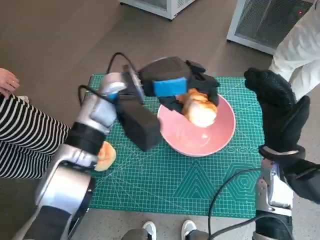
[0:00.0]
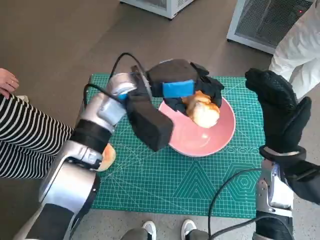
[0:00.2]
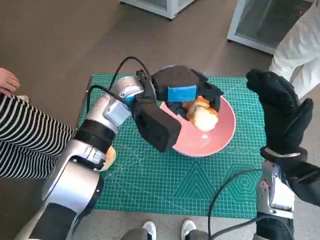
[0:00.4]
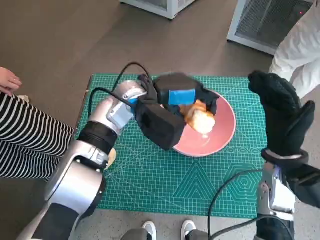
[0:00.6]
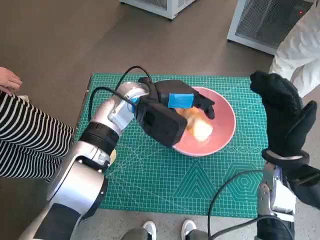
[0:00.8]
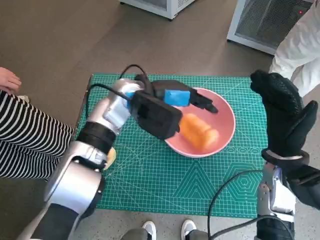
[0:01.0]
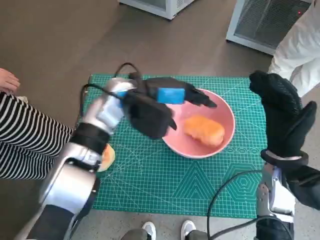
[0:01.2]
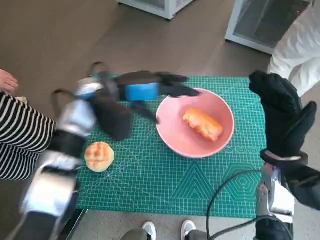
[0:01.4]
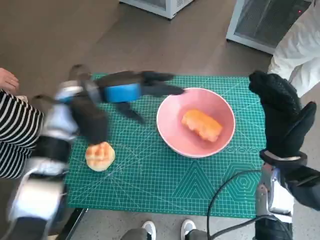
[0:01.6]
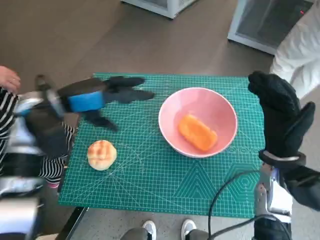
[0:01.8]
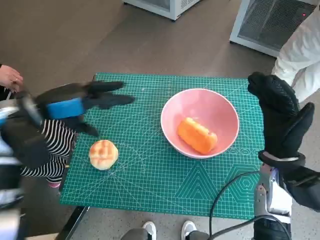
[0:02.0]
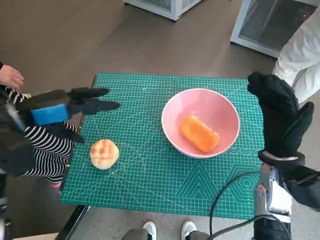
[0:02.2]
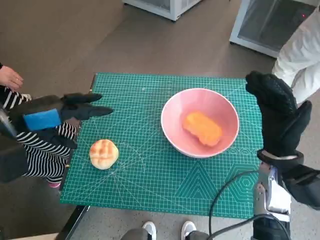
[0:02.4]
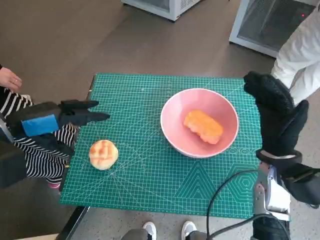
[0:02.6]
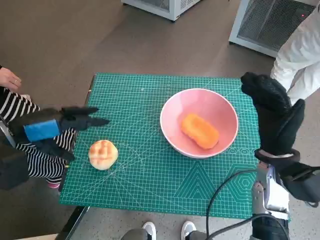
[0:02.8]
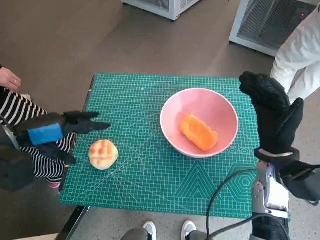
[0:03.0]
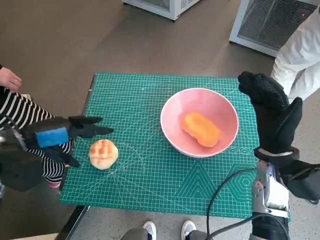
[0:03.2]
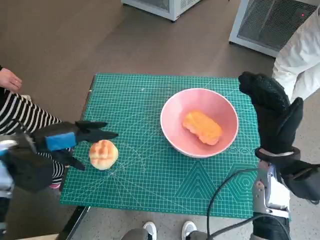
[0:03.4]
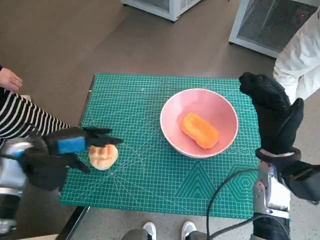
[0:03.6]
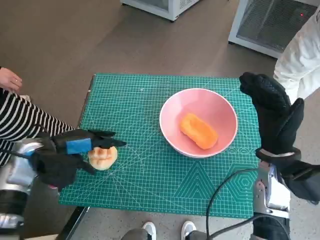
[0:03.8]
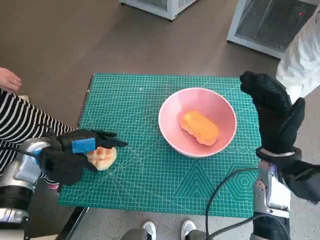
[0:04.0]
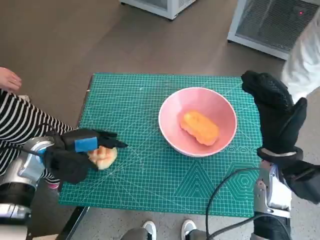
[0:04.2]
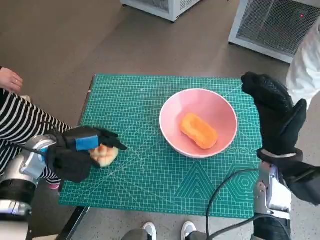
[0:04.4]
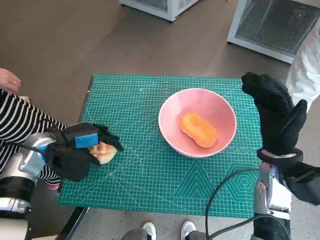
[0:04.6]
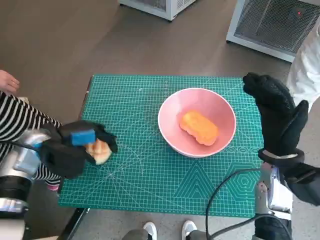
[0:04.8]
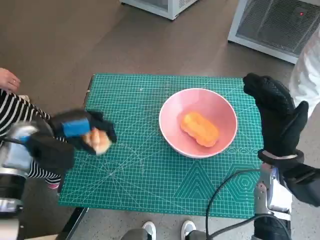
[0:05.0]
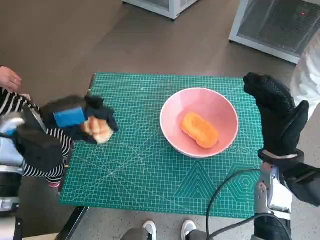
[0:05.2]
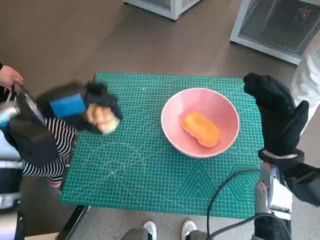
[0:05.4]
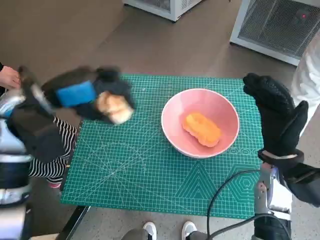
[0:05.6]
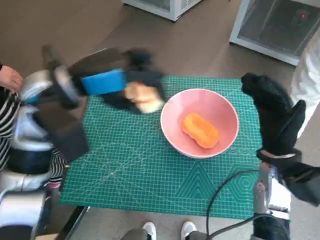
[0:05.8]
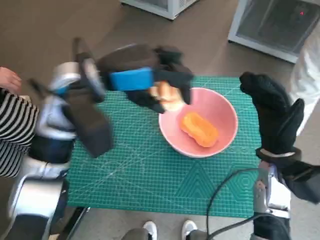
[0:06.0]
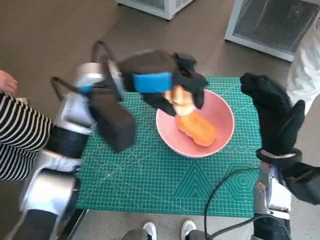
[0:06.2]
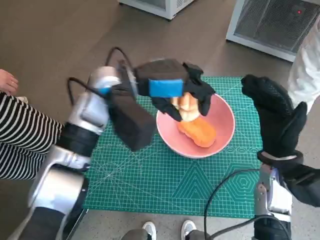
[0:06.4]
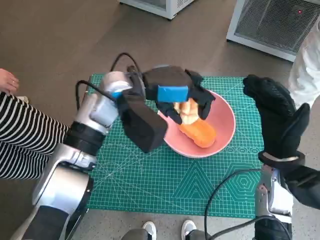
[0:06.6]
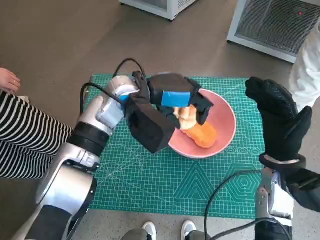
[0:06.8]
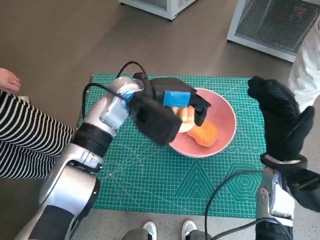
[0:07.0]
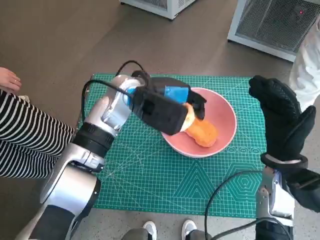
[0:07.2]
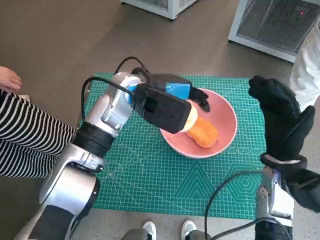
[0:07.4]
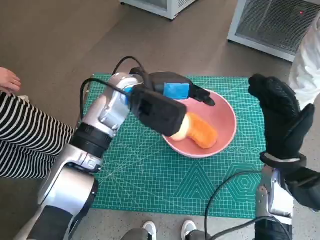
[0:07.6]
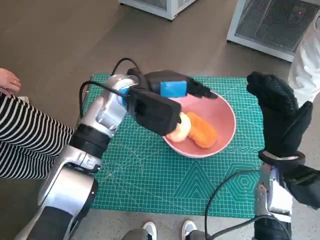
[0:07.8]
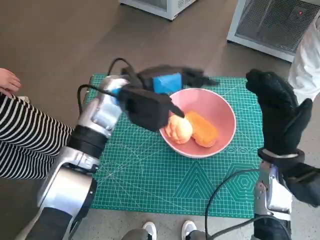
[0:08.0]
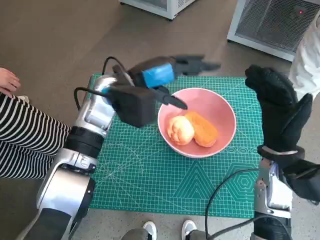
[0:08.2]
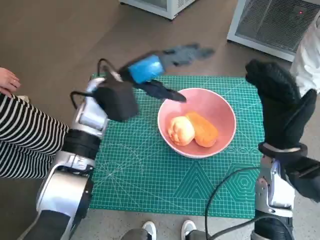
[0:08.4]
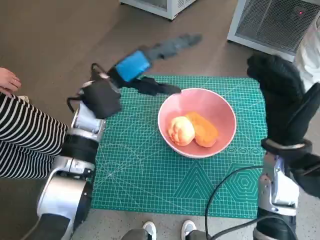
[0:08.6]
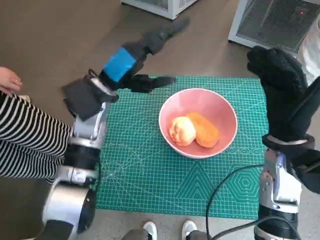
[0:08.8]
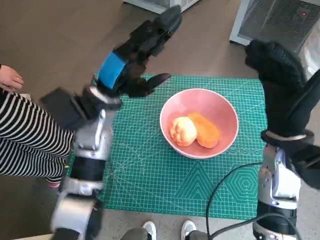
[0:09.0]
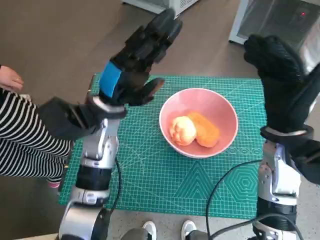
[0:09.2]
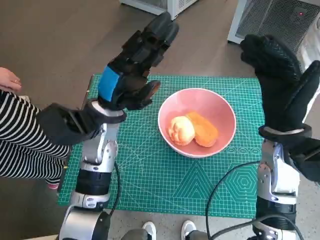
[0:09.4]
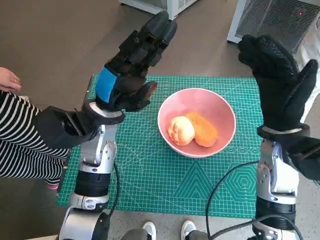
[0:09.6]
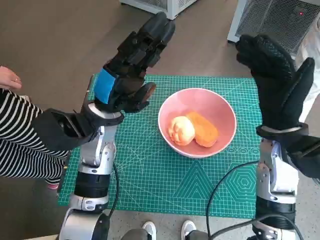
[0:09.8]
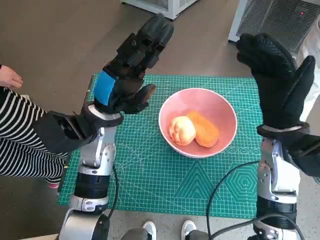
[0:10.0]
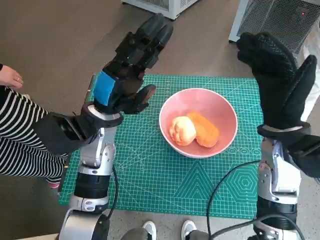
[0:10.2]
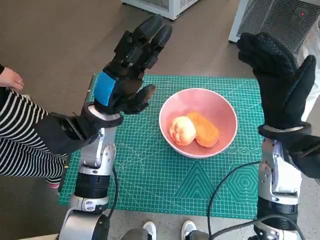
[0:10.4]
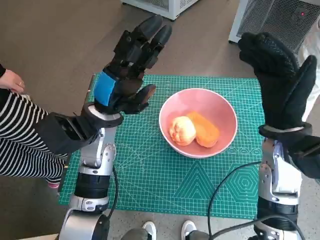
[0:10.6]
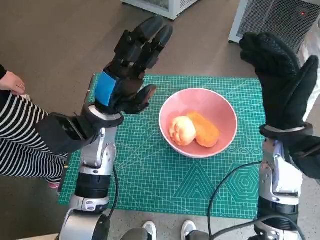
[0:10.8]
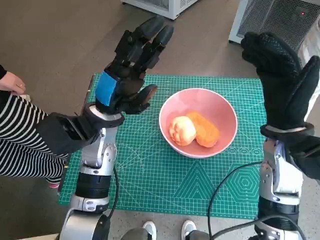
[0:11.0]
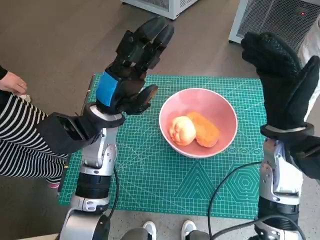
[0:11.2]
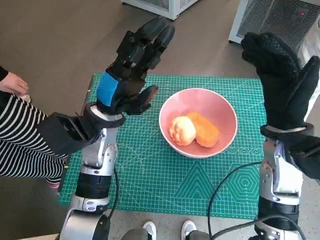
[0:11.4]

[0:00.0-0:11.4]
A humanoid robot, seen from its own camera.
Task of the whole recording: Push the bowl into the center of the table and put the bread into the bowl.
Step, 0:01.4 to 0:04.6: Grasp the round bread with left hand.
Step, 0:04.8 to 0:08.0: Place the round bread in pink bowl with left hand.
0:01.4 to 0:02.8: The left hand goes approximately 20 cm to the left and backward.
0:02.8 to 0:04.2: The left hand is displaced downward by approximately 10 cm.
0:04.2 to 0:05.6: The left hand heads upward, covering roughly 15 cm.
0:05.6 to 0:07.2: The left hand shifts some 15 cm to the right and forward.
0:07.2 to 0:08.6: The left hand moves to the left, approximately 5 cm.
0:08.6 to 0:10.0: The left hand shifts by approximately 5 cm.
0:10.0 to 0:11.4: Neither hand changes place.

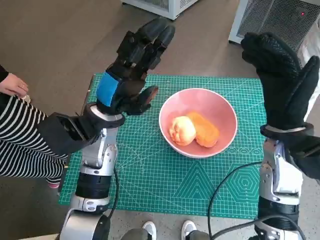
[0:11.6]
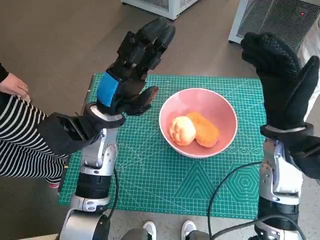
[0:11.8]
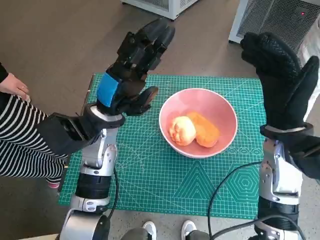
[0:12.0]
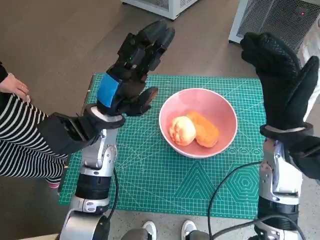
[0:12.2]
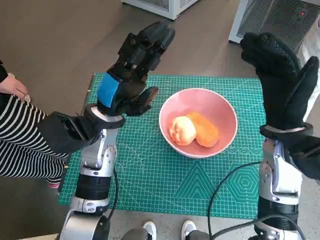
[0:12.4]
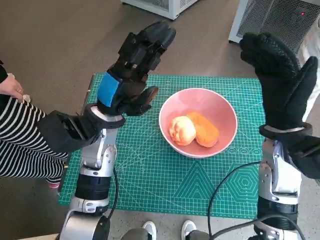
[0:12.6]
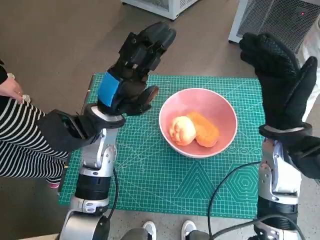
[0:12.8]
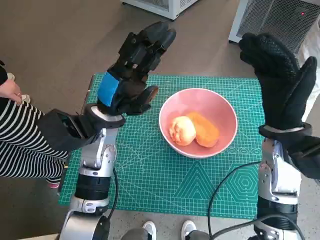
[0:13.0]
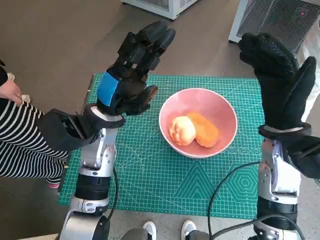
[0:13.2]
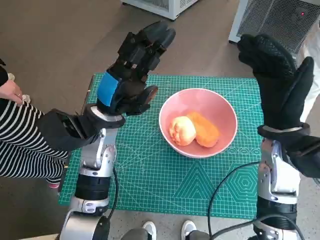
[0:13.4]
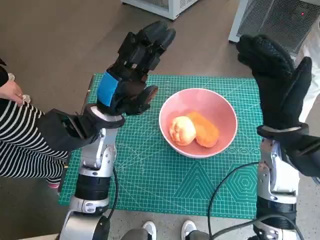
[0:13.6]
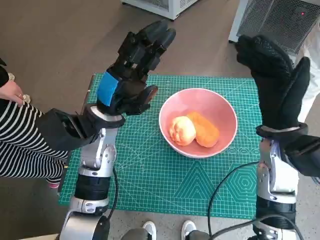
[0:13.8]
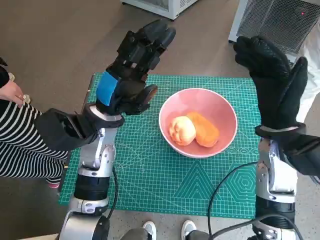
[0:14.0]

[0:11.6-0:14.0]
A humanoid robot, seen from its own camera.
Task of the whole recording: Push the bowl into the center of the table and put the bread into the bowl.
0:11.6 to 0:14.0: Both hands stay about where they are.

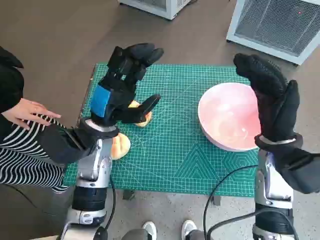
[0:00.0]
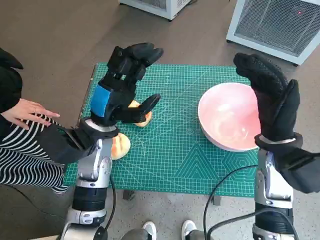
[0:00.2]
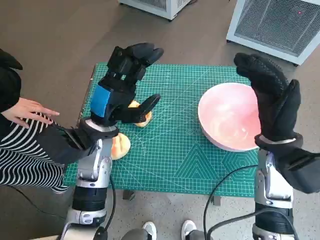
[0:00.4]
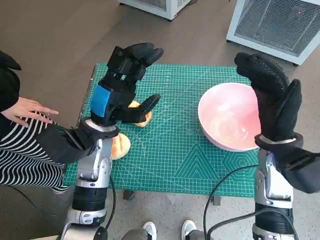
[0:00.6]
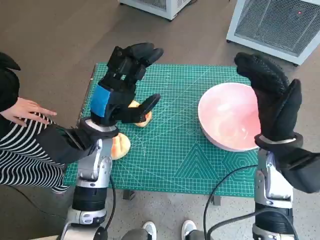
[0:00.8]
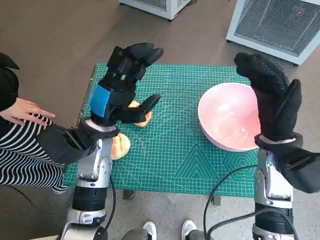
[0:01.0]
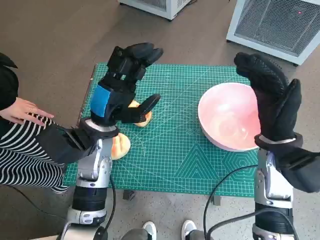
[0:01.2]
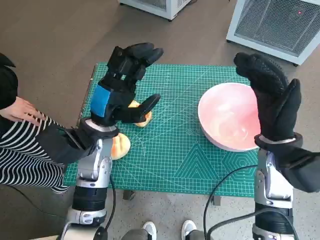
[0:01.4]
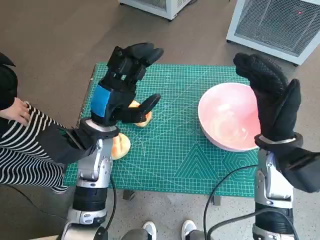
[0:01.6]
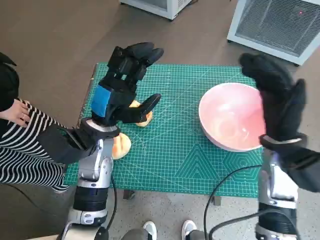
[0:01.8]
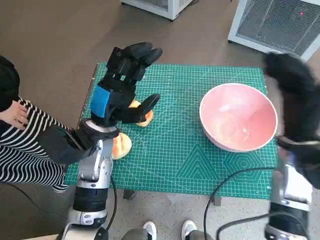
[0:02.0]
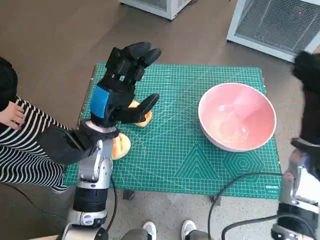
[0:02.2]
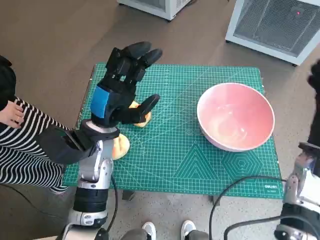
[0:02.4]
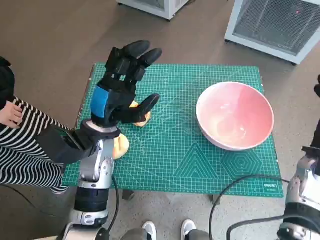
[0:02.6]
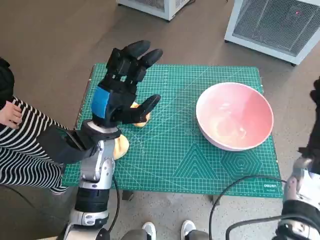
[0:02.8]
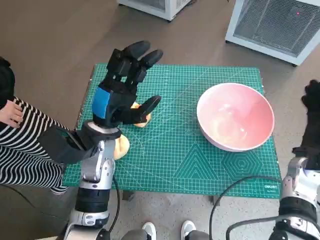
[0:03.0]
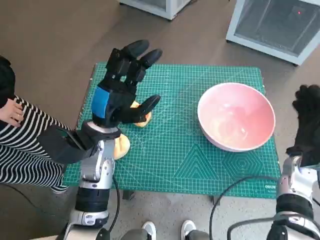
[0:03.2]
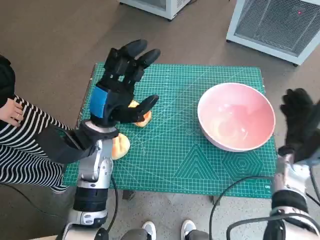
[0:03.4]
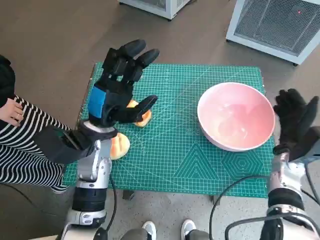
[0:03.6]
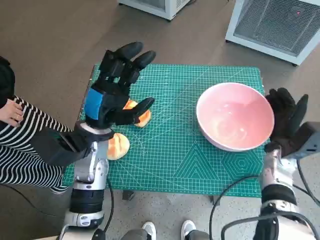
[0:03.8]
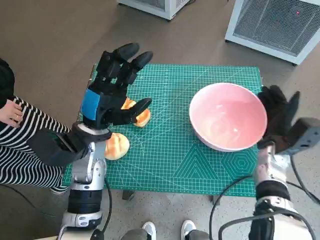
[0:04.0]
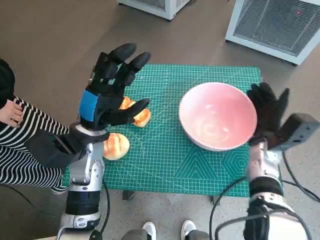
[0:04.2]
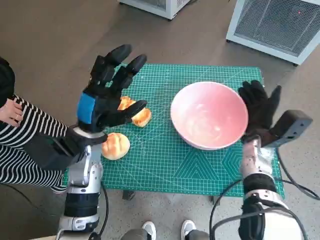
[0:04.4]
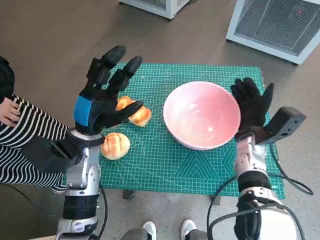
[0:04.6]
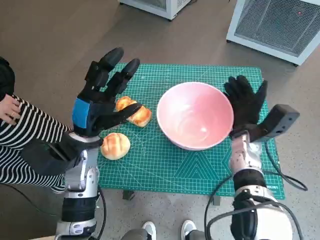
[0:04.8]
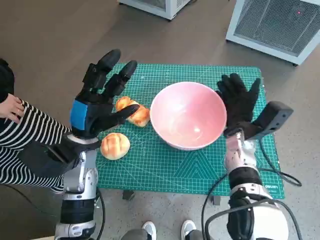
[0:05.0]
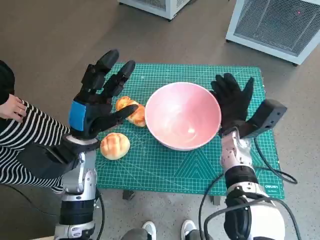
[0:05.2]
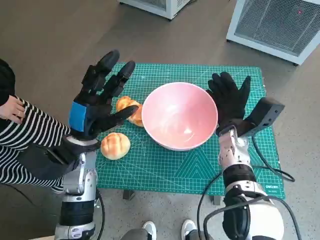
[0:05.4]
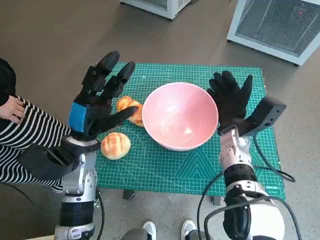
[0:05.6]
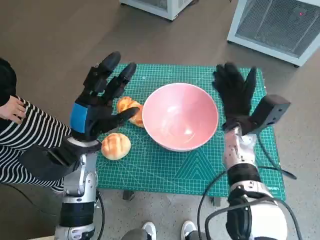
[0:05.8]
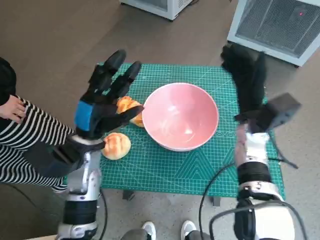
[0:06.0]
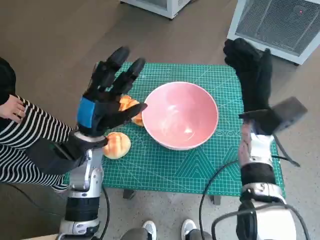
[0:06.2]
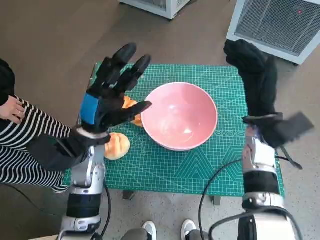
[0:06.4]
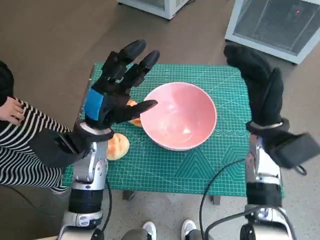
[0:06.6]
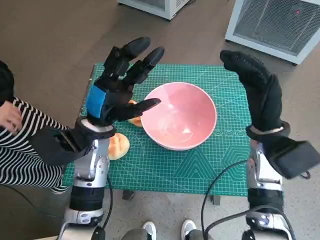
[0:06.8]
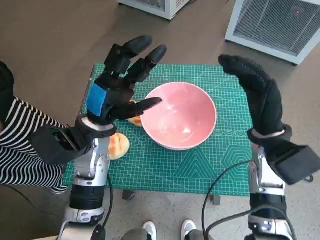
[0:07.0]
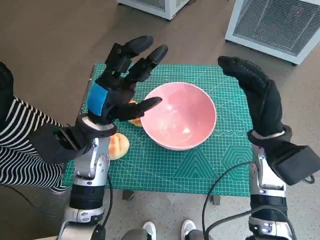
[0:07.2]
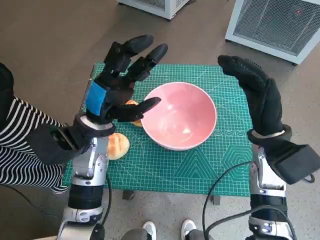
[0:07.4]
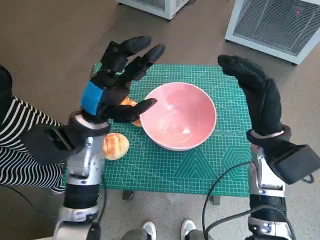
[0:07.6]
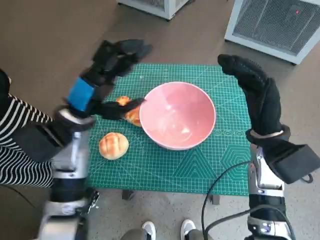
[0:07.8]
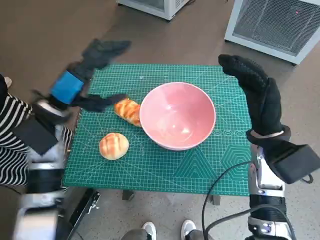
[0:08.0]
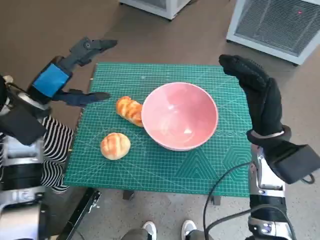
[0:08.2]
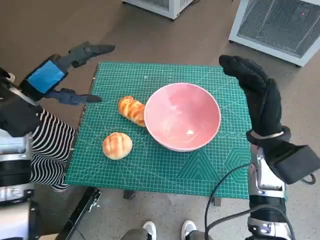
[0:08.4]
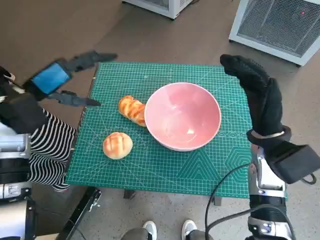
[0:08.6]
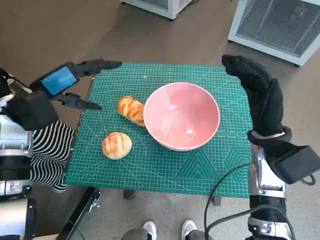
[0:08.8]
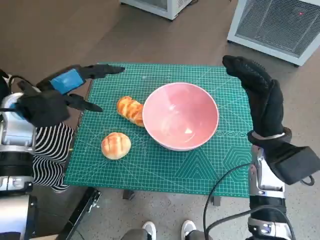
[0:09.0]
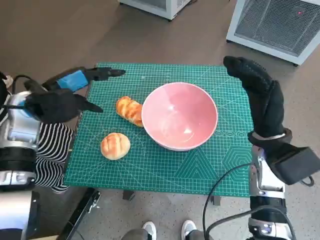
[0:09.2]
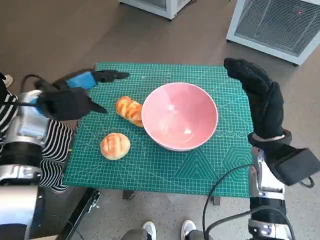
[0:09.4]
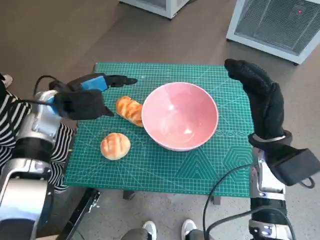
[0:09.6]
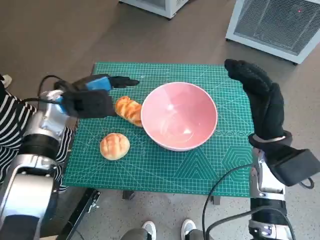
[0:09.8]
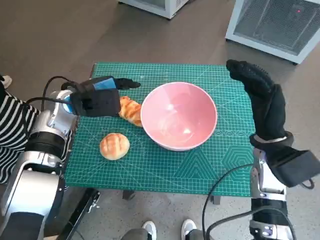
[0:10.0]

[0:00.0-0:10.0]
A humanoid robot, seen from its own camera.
Task of the whole recording: Push the bowl into the center of the table and put the bread into the bowl.
Step, 0:00.0 to 0:05.8: Move the pink bowl to the center of table with right hand.
0:01.4 to 0:02.8: The right hand shifts approximately 10 cm to the right and downward.
0:02.8 to 0:04.2: The right hand moves to the left, some 5 cm.
0:04.2 to 0:05.8: The right hand is displaced to the left by about 5 cm.
0:05.8 to 0:07.2: The left hand ends up about 5 cm from where it was; the right hand is displaced upward and backward by about 10 cm.
0:07.2 to 0:08.6: The left hand moves to the left and upward, approximately 15 cm.
0:08.6 to 0:10.0: The left hand is displaced to the right and forward by roughly 10 cm.
